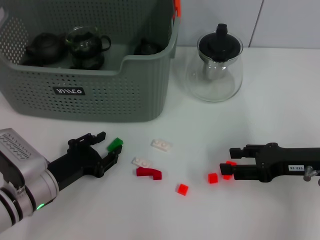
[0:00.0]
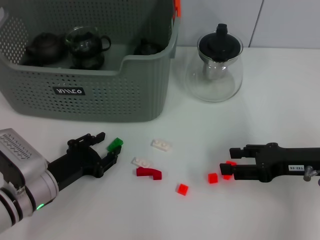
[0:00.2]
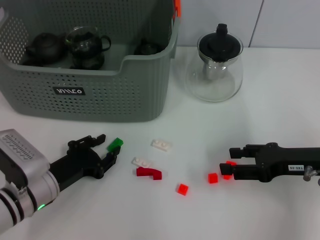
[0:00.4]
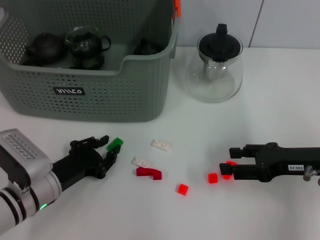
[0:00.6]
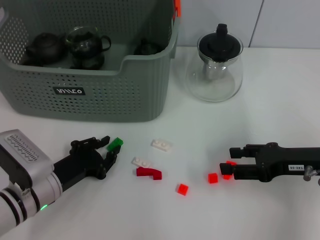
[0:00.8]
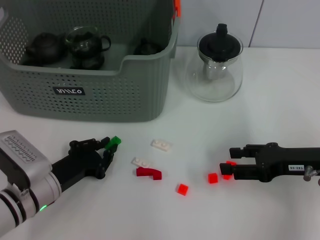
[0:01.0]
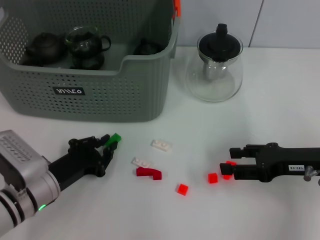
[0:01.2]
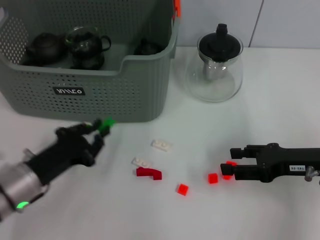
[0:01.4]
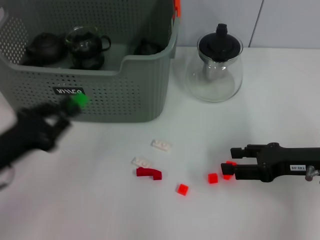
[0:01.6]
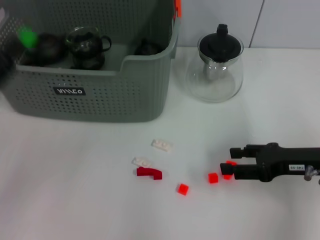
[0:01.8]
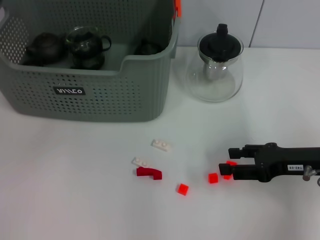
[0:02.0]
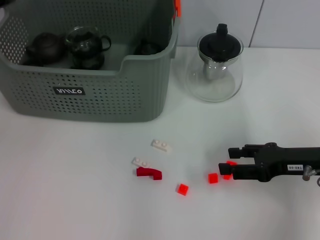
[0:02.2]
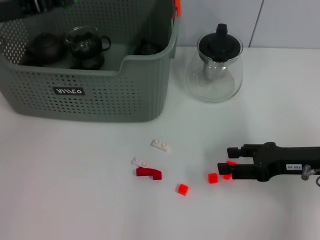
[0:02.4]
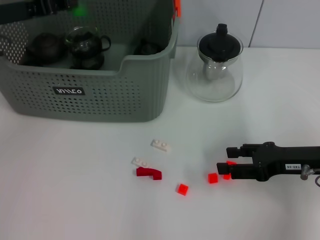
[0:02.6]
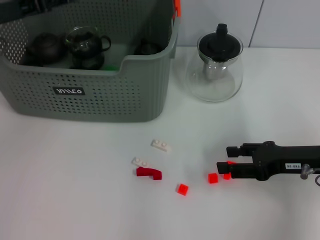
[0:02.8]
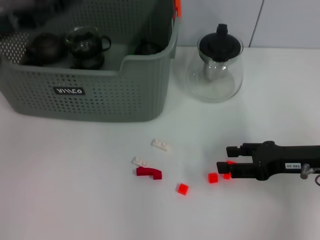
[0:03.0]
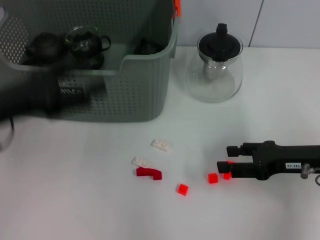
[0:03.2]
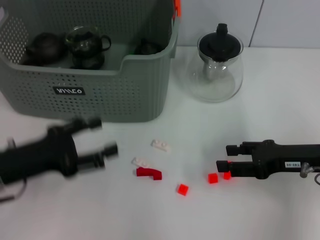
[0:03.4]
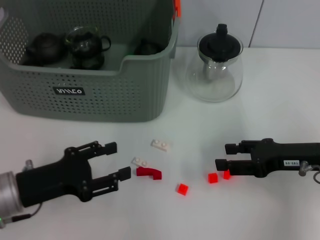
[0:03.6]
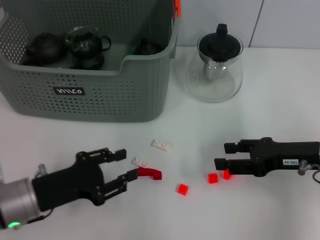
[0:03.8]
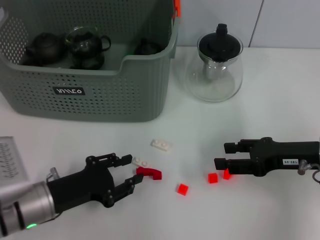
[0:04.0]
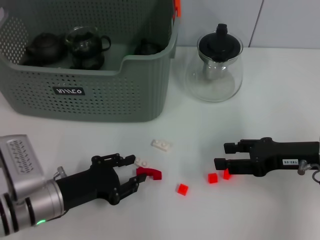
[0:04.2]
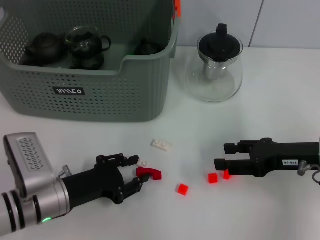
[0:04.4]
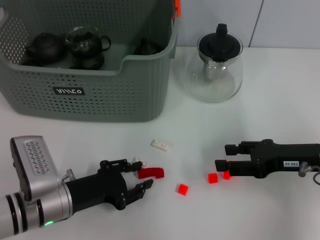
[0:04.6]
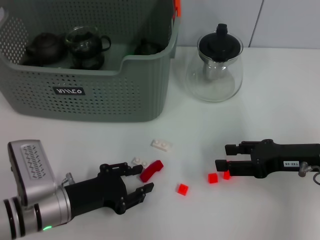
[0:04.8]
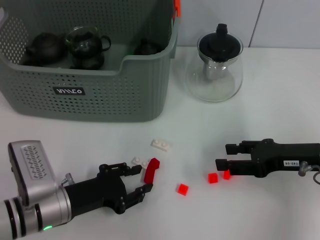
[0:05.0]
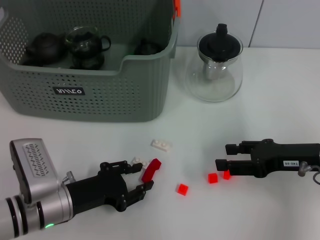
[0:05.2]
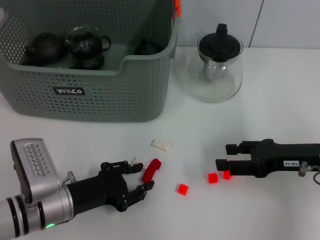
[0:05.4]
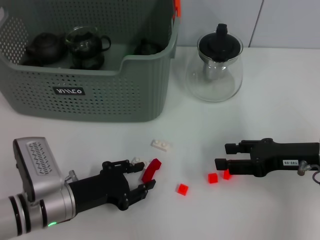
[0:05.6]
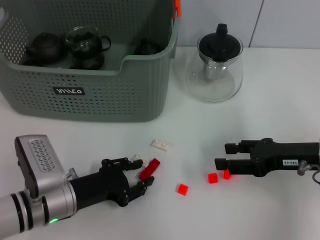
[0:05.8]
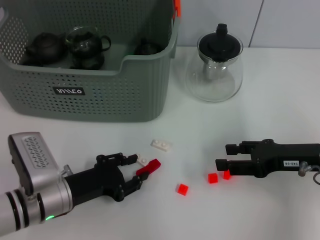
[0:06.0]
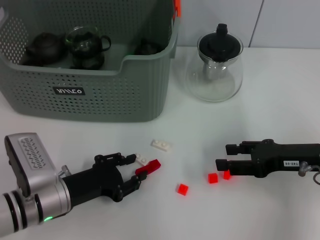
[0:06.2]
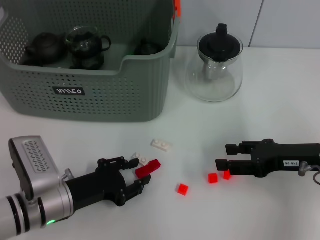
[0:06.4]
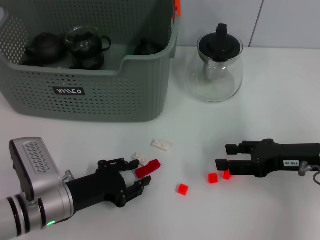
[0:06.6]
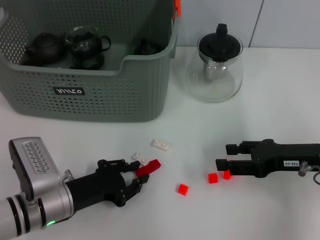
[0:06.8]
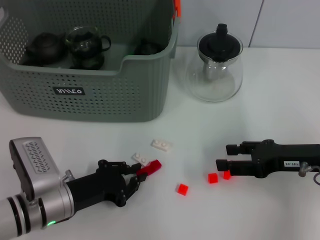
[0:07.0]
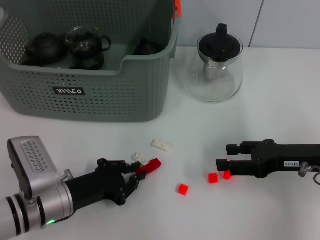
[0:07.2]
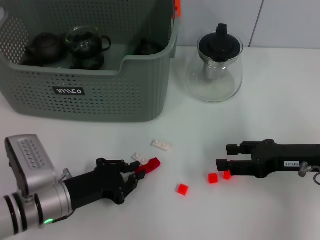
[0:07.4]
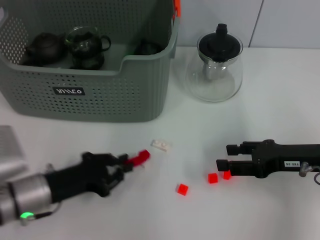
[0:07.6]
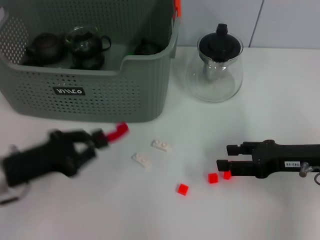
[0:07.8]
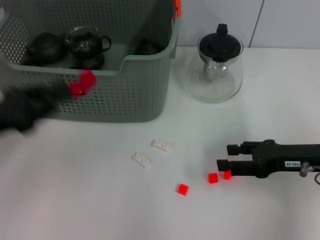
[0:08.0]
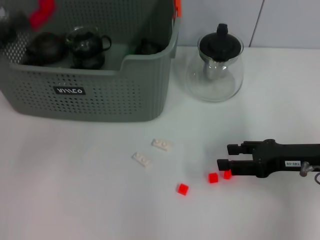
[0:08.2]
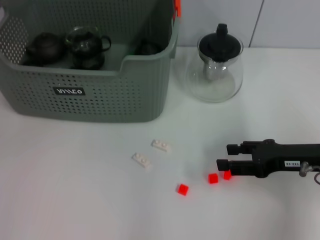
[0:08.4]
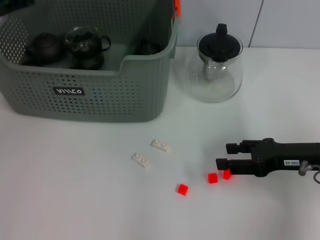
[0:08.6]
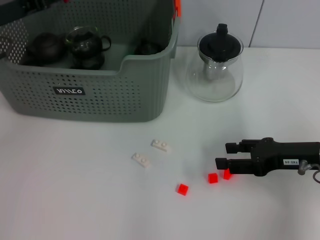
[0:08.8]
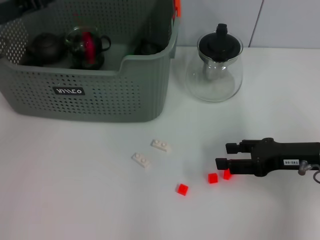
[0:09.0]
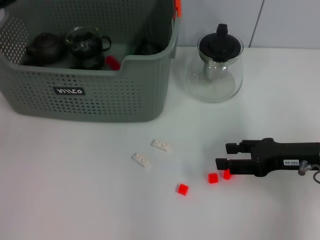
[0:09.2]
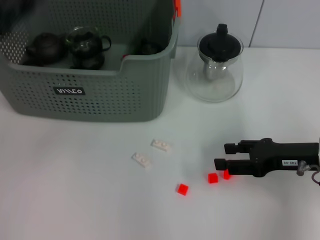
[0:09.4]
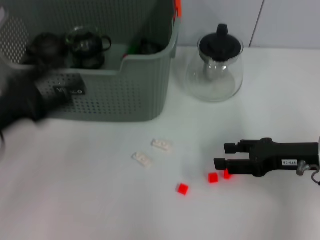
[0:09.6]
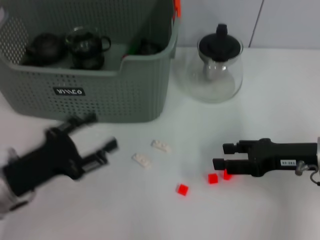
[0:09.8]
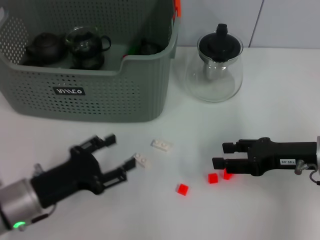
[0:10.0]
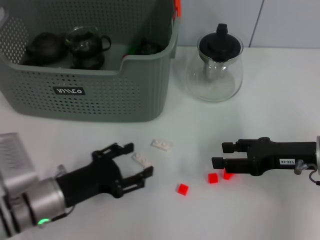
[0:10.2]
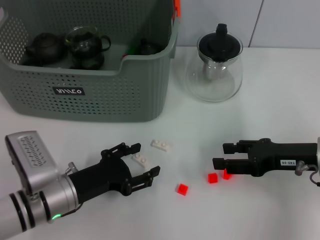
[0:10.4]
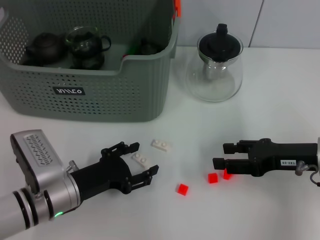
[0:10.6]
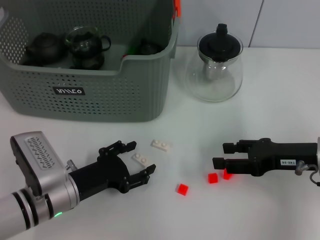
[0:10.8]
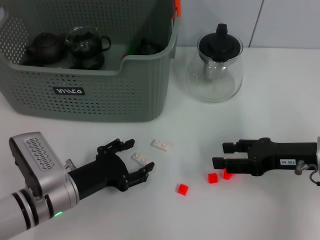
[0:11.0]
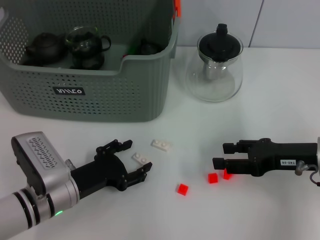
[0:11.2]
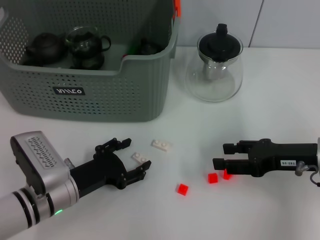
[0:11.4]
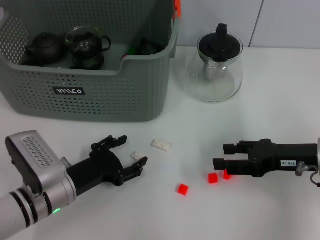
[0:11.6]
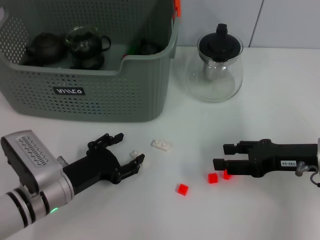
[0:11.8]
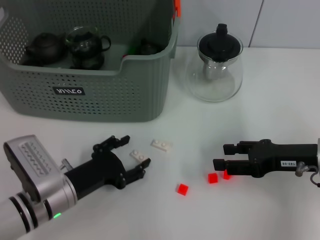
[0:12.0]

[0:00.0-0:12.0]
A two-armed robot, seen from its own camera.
Task of the whole recording: pick up the teacup on the table and place it into the storage bin, pick up the block on the table and place it into the storage bin.
Step, 1.4 to 2.6 s: Place the green block in the storage box with left gripper.
Step, 3.0 to 7.2 s: Grasp the red block with left gripper.
Step, 7.4 to 9.2 s: Place the red block in the storage box with left gripper.
0.0 to 1.6 s: The left gripper goes some 10 cm upward and to the left.
1.6 to 3.0 s: The left gripper moves upward and forward, some 15 cm.
3.0 to 4.4 s: The left gripper travels downward, backward and to the right by roughly 25 cm, and opens, then closes again.
4.4 to 6.0 s: The two grippers keep their place.
6.0 to 7.6 s: The left gripper closes.
7.6 to 9.0 s: The left gripper is displaced upward, forward and to the left by about 25 cm.
9.0 to 10.4 s: The left gripper shifts some 25 cm downward, backward and to the right, and opens its fingers.
10.4 to 12.0 s: The grippers stay close to where they were, moving slightly.

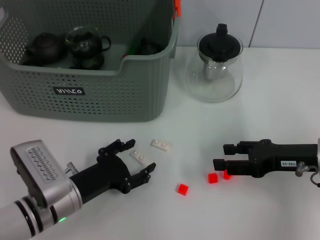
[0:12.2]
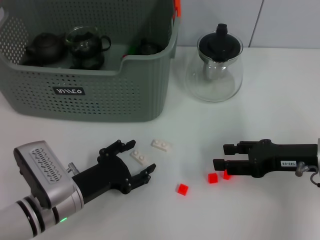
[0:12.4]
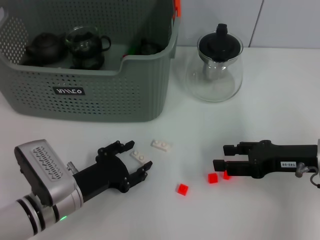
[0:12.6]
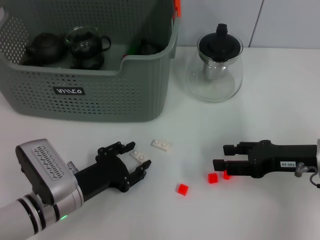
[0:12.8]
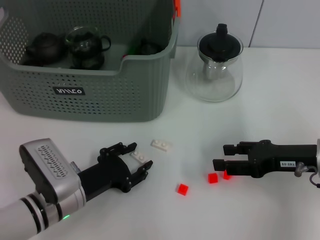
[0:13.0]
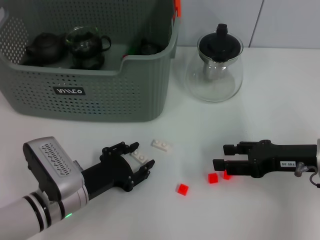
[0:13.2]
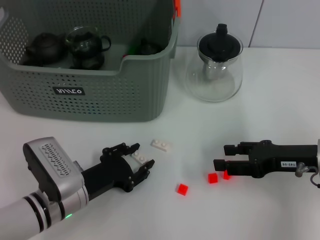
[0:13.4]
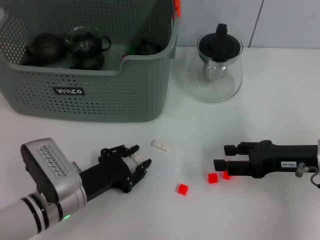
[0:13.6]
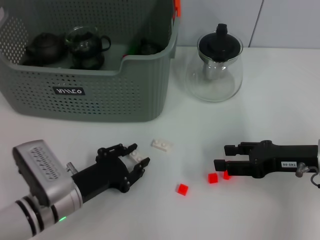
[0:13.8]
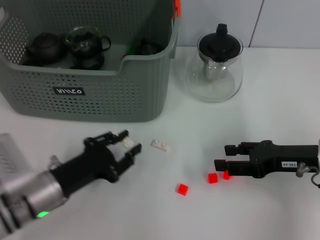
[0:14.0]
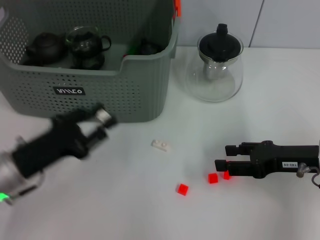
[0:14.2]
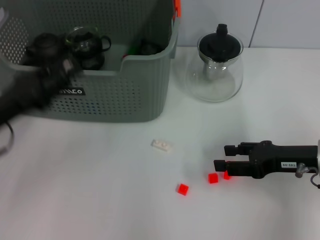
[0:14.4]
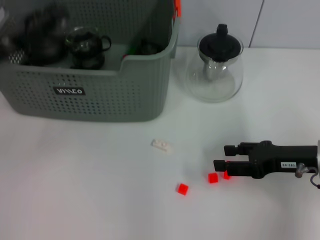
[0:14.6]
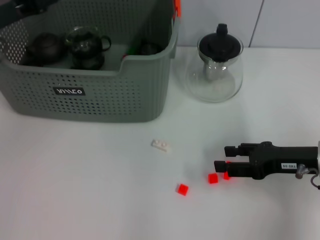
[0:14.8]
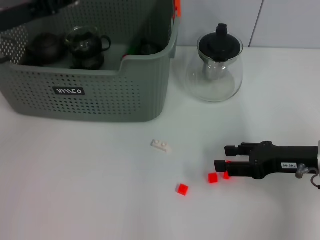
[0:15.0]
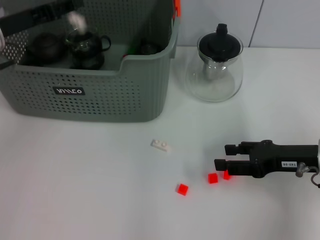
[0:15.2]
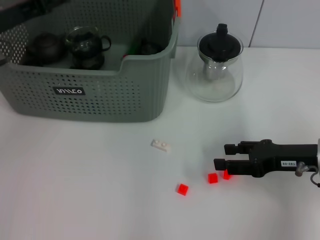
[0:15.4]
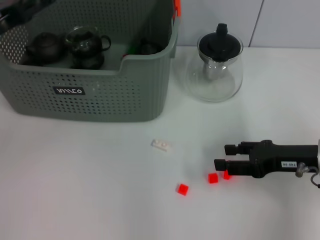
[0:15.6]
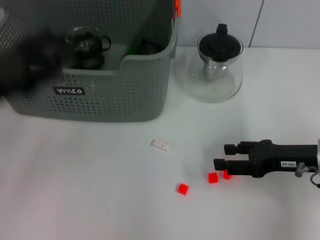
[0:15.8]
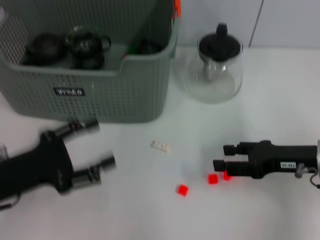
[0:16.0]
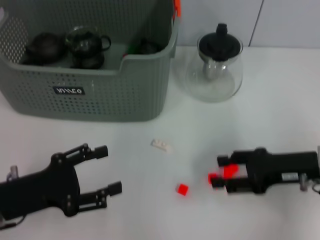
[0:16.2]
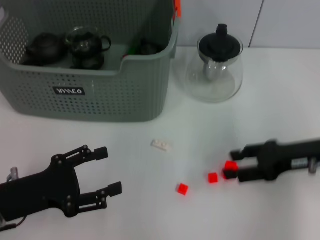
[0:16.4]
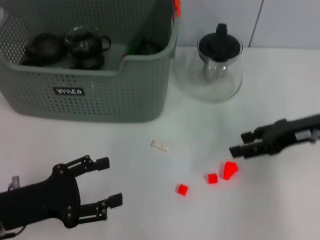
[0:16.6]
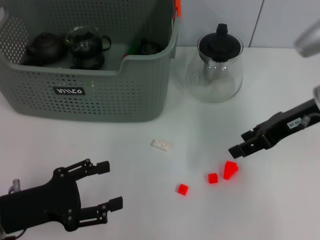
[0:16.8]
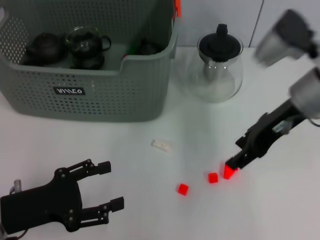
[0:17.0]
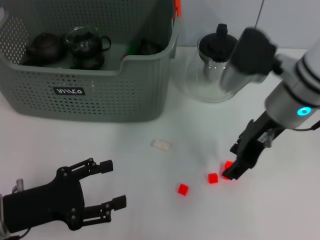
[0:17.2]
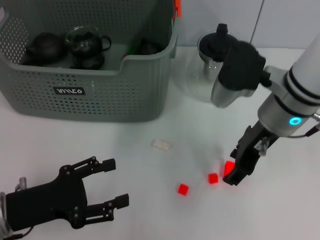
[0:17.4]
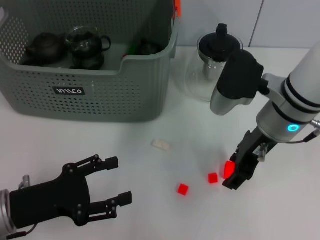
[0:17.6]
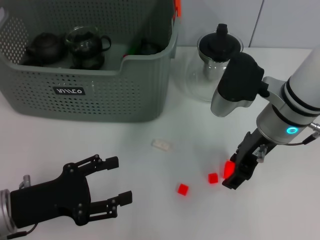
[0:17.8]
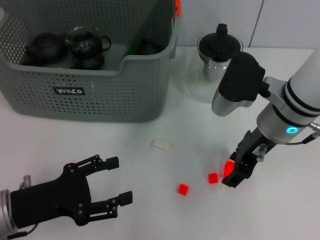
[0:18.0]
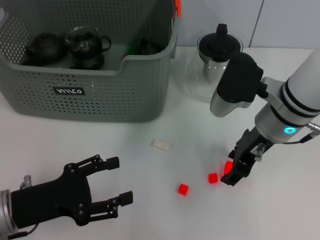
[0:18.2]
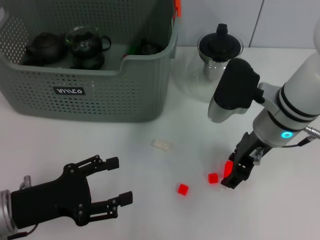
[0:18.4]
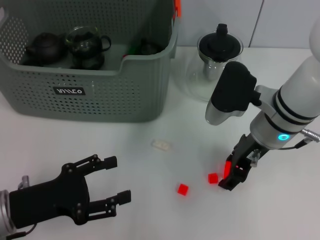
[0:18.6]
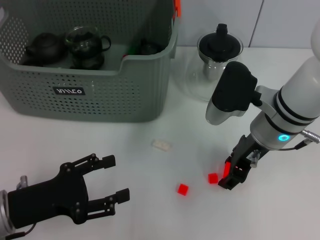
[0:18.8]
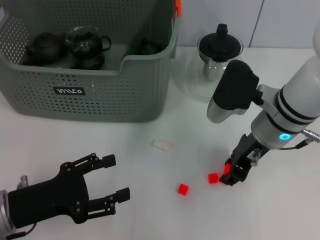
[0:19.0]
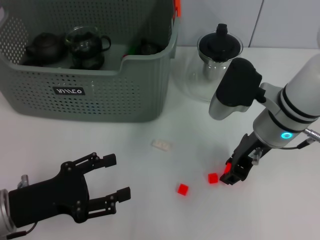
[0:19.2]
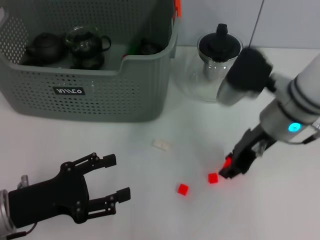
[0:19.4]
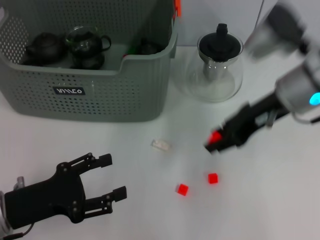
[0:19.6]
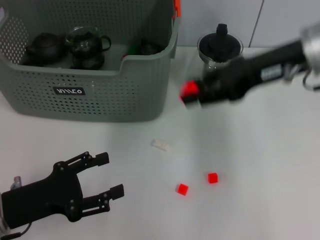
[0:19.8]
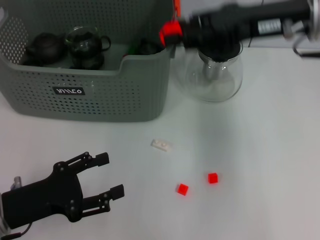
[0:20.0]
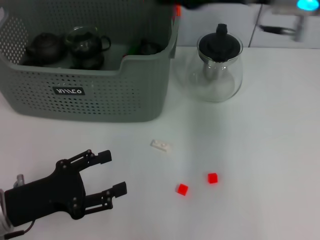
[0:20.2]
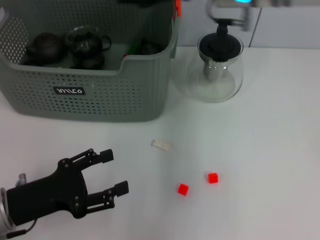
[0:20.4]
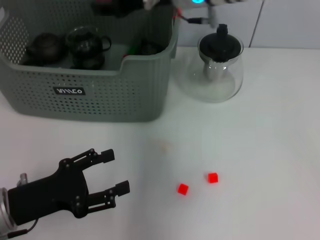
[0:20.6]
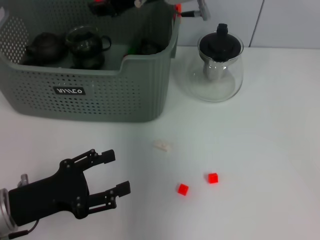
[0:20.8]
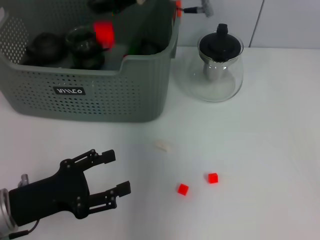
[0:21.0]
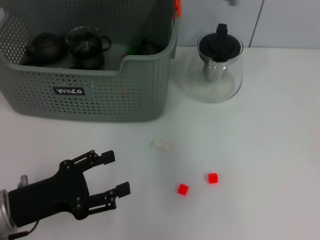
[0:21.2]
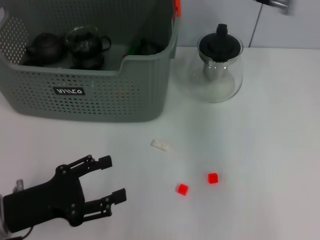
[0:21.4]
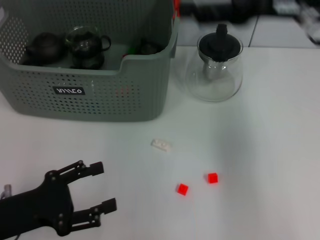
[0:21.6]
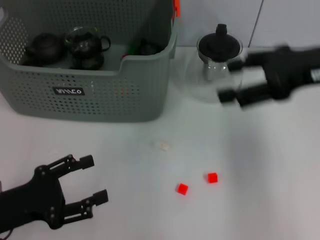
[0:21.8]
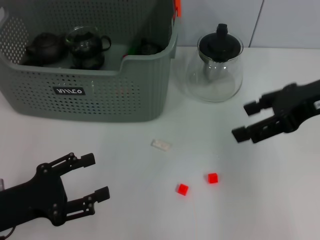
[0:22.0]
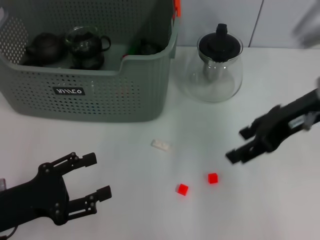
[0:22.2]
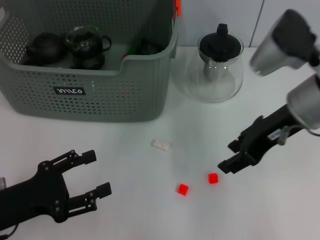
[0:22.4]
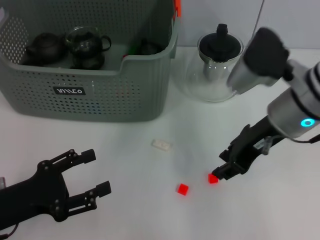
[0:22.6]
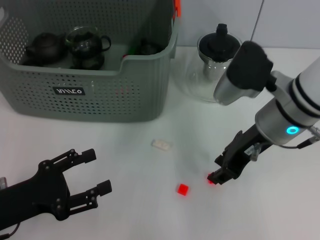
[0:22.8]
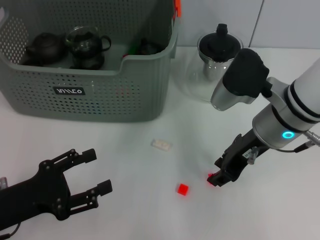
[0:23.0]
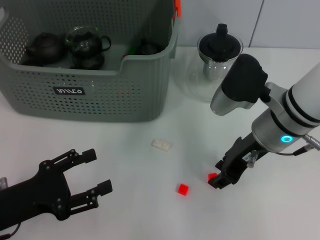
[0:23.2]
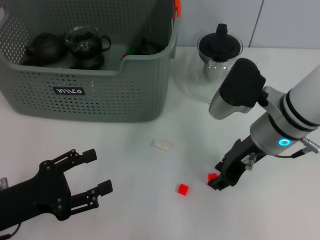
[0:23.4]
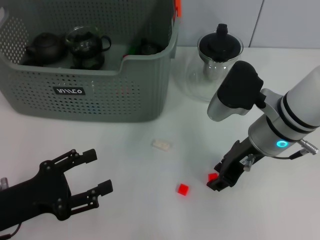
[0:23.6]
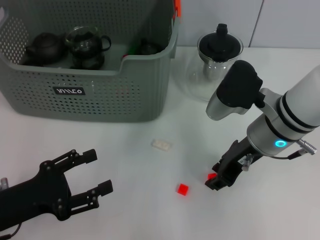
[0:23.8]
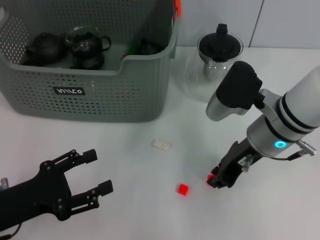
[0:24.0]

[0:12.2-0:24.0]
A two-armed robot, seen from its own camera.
Task of the whole recording: pick up the teacup on the table and place it into the storage bin, pick up the block on the table and place it into the storage bin.
Step, 13.8 to 15.4 s: Place the white block in the storage box with left gripper.
Step, 15.6 to 18.6 s: Grasp the orange block with right gripper.
Step, 19.0 to 21.0 s: Place the orange block in the storage box with right gripper.
12.2 to 13.6 s: The two grippers keep their place.
13.6 to 15.2 s: The left gripper moves upward, forward and to the left, some 25 cm.
15.2 to 16.6 s: The left gripper travels backward and downward by about 25 cm, and opens up. The right gripper goes about 5 cm upward.
16.6 to 18.2 s: The right gripper shifts some 10 cm to the left.
18.2 to 19.6 s: The right gripper is displaced upward by some 5 cm.
19.6 to 21.0 s: The right gripper travels to the left, forward and upward by some 20 cm.
21.0 to 22.6 s: The right gripper heads to the right, backward and downward, covering some 20 cm, and opens, then closes once more.
22.6 to 24.0 s: The right gripper moves downward, about 5 cm.
